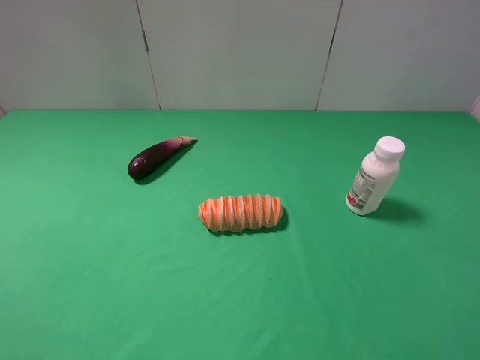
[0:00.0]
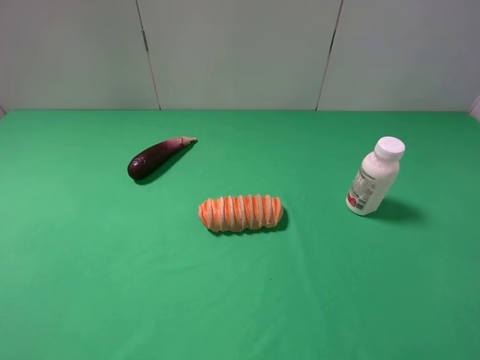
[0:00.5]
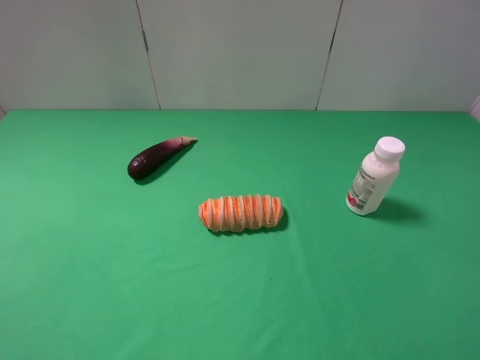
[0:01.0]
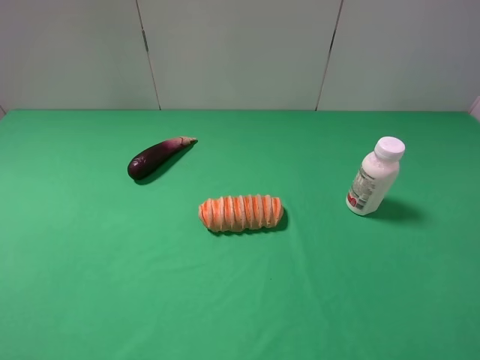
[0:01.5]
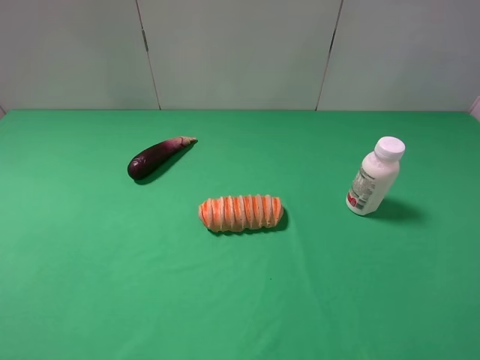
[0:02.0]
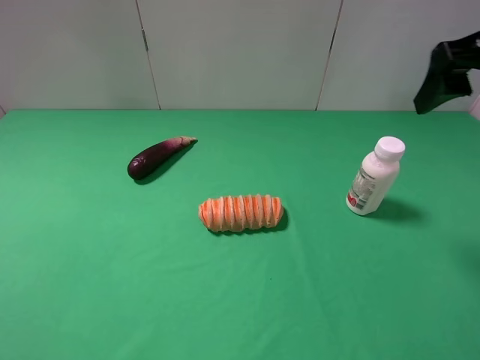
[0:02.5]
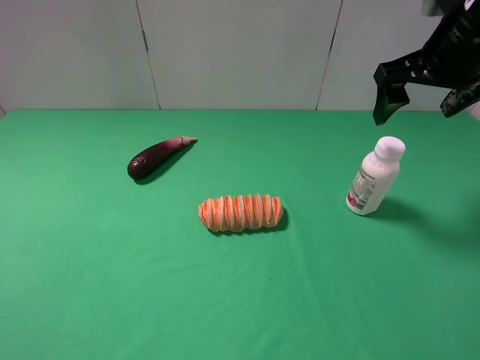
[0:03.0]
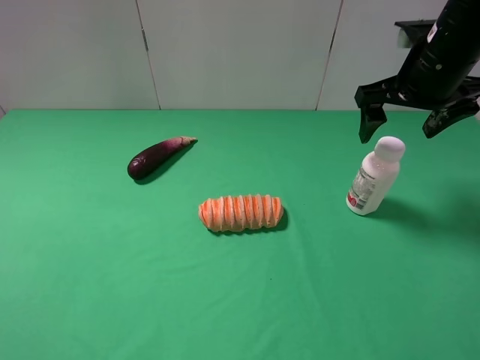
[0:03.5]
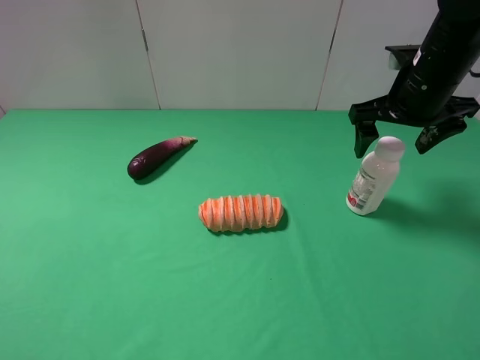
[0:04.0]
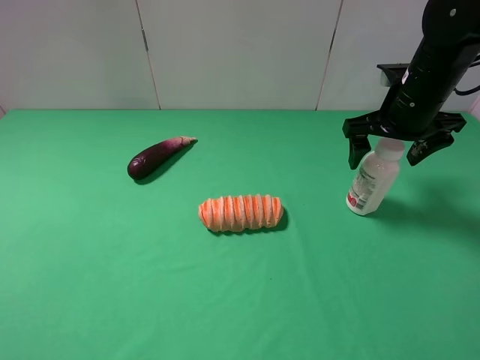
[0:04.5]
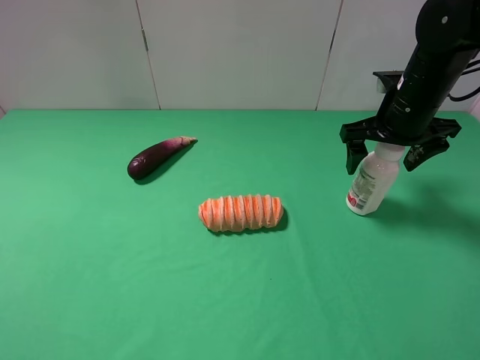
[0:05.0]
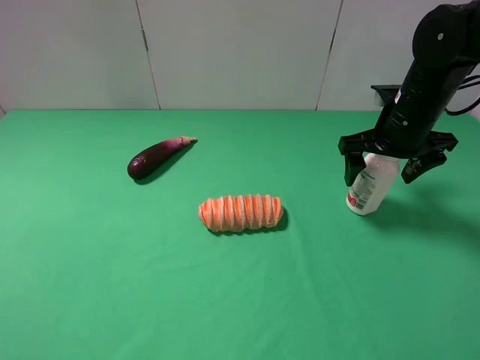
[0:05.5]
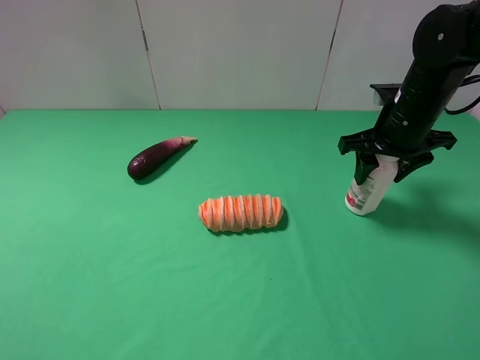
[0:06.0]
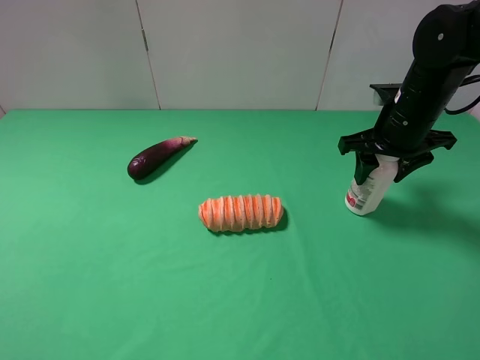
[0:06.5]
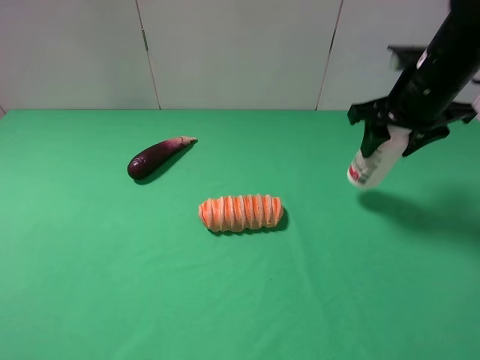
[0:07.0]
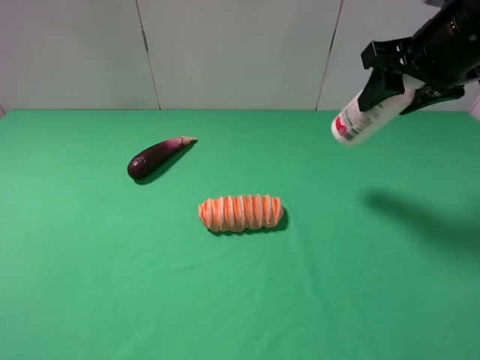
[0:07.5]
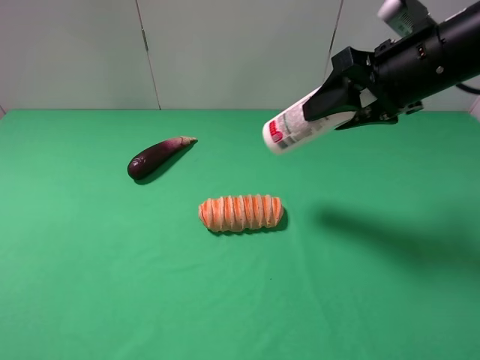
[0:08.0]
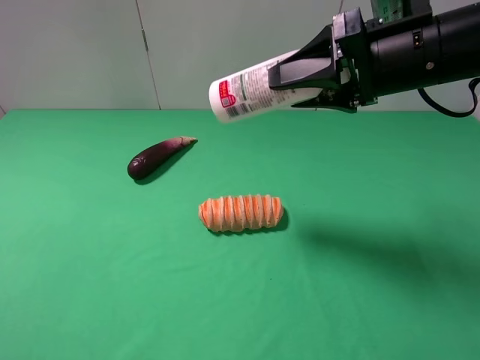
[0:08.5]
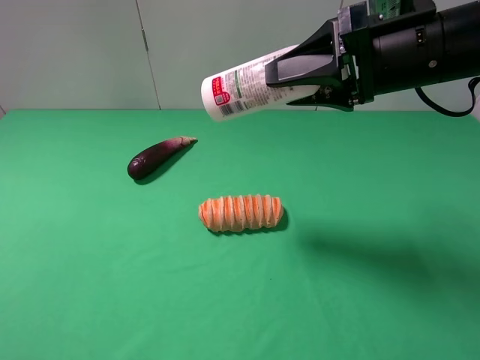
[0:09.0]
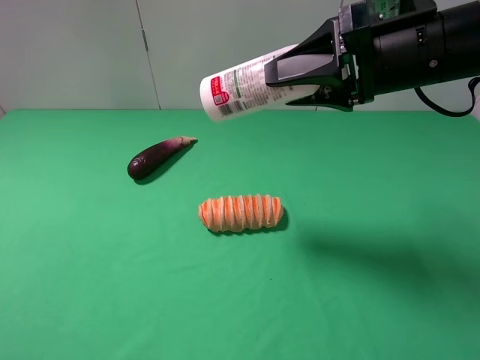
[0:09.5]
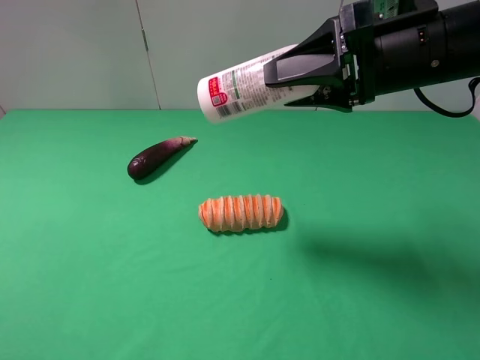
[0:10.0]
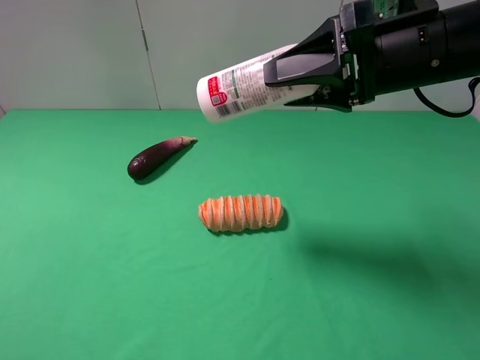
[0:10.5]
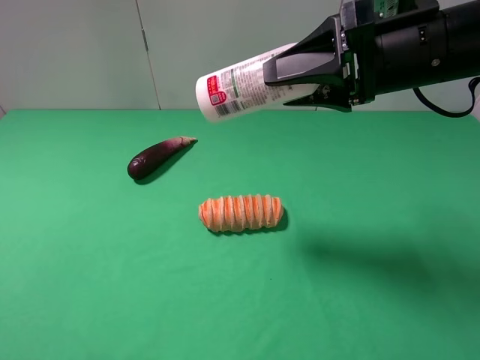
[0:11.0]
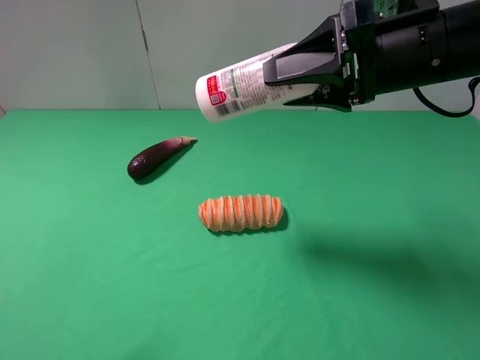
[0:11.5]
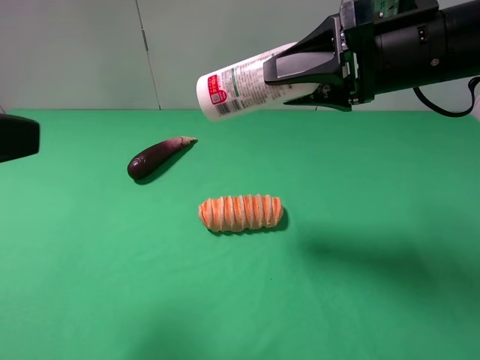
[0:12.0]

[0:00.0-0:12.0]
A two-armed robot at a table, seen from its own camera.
Task of the whole recording: use the right gripper to pick up the item and transfer it from the right gripper to the left gripper.
Step, 0:00.0 to 0:06.0: Use the right gripper to grab the milk on the right side of the table.
0:02.0 to 0:04.0: The right gripper heads forward and downward, covering approximately 25 cm.
0:04.0 to 0:06.0: The right gripper closes up.
0:06.0 to 0:08.0: The right gripper heads upward and backward, covering some 10 cm.
0:10.0 to 0:12.0: The left gripper is displaced forward, upward and to the right by roughly 15 cm.

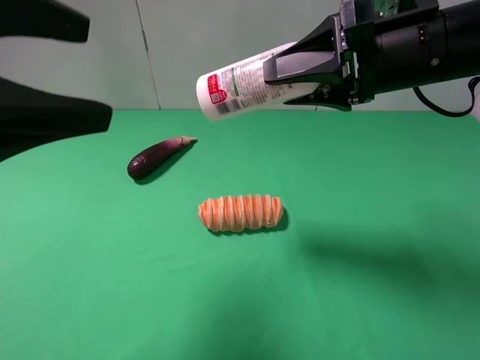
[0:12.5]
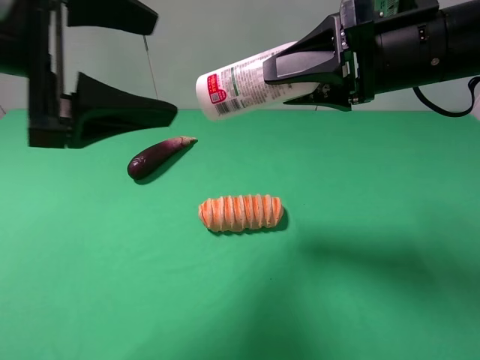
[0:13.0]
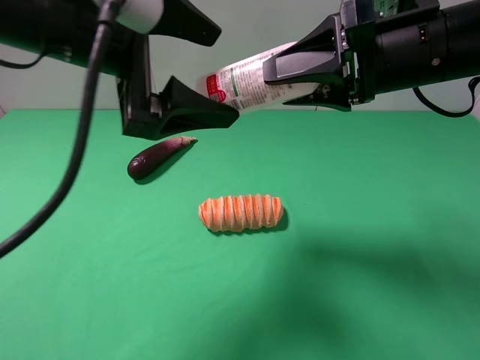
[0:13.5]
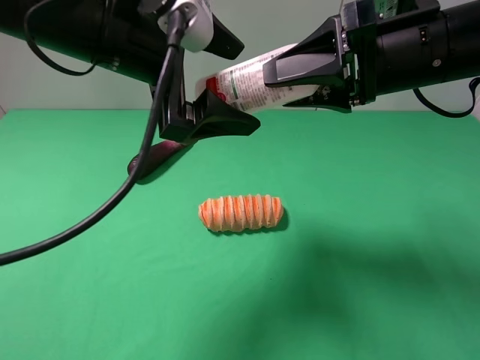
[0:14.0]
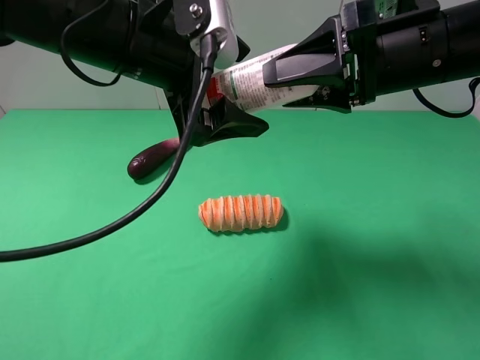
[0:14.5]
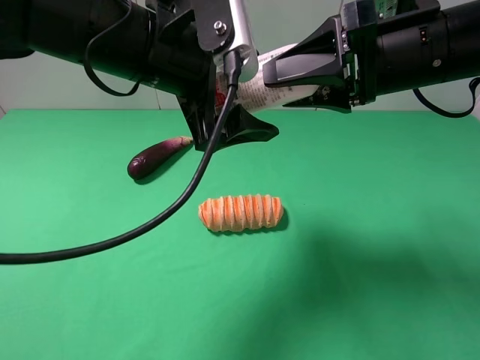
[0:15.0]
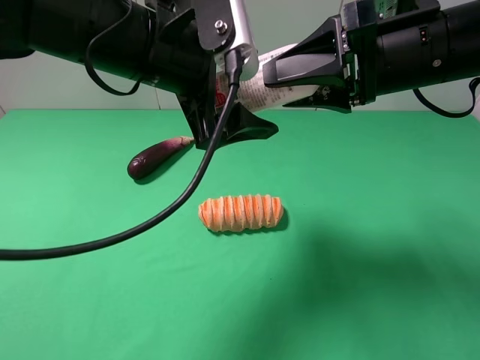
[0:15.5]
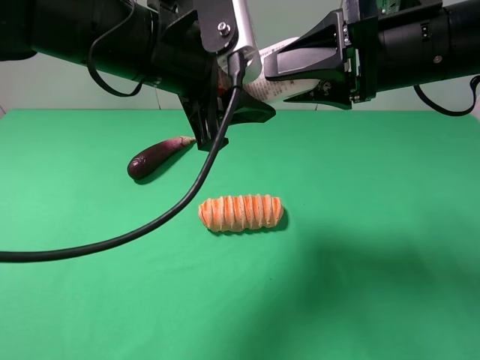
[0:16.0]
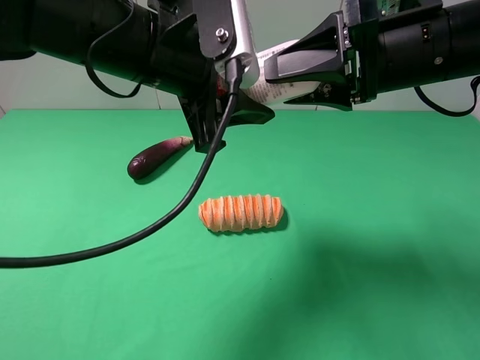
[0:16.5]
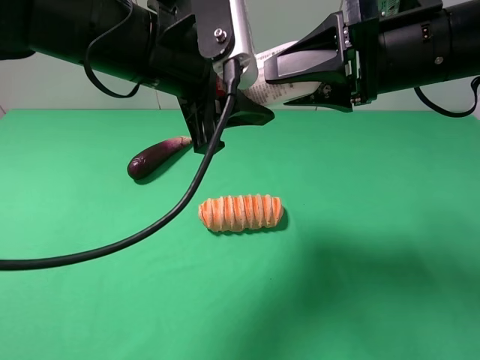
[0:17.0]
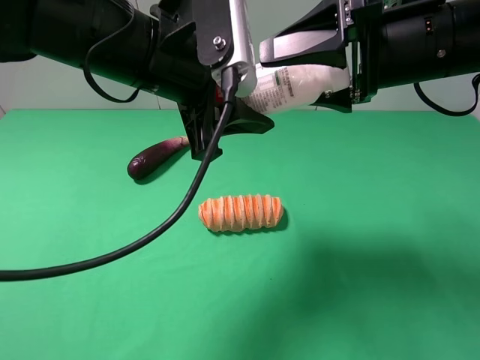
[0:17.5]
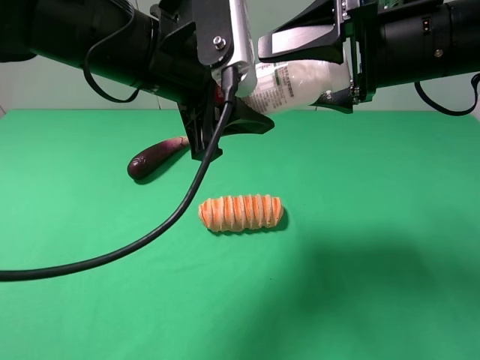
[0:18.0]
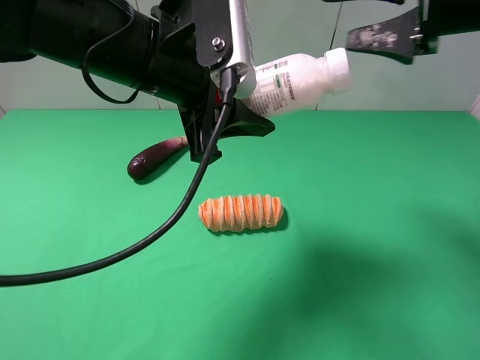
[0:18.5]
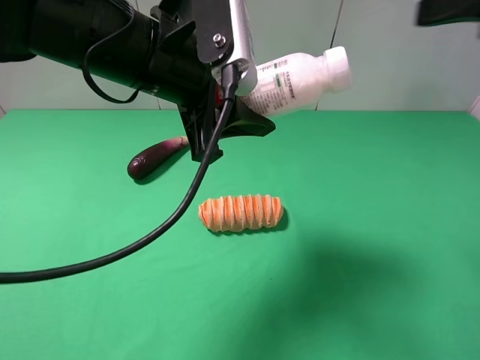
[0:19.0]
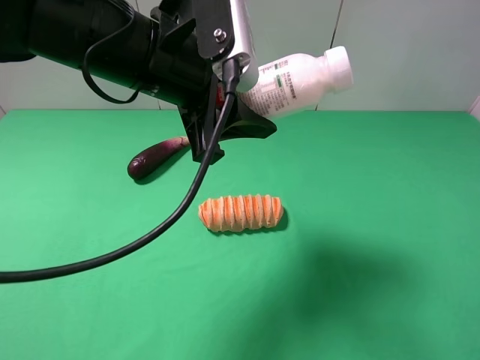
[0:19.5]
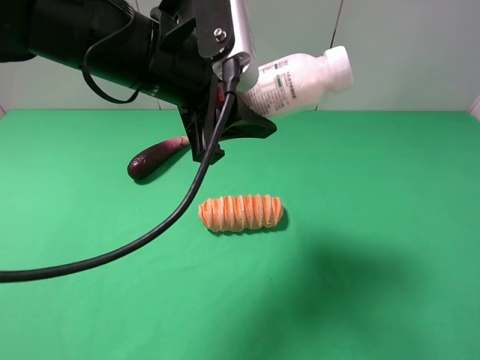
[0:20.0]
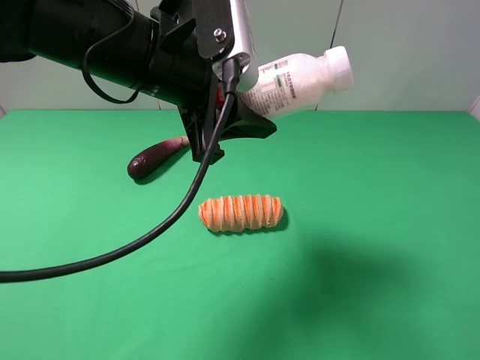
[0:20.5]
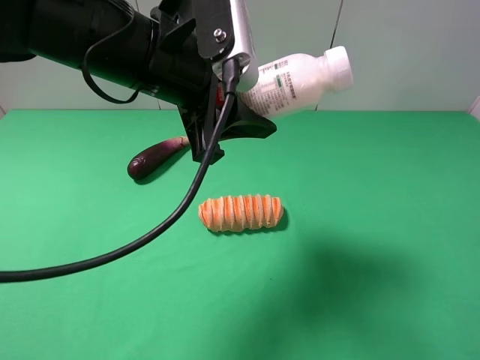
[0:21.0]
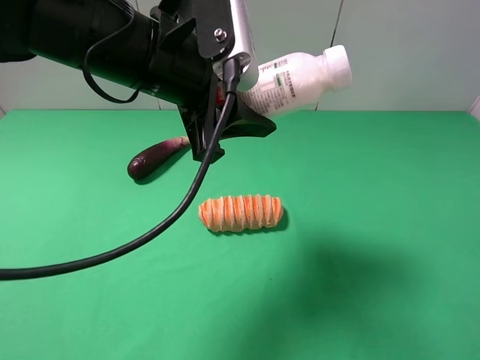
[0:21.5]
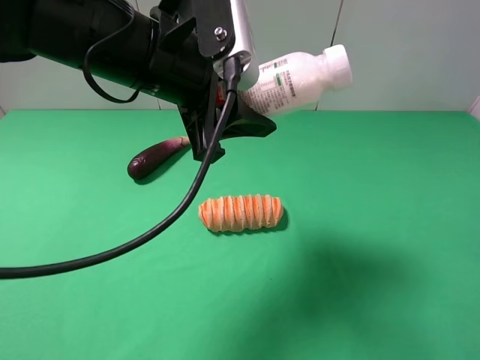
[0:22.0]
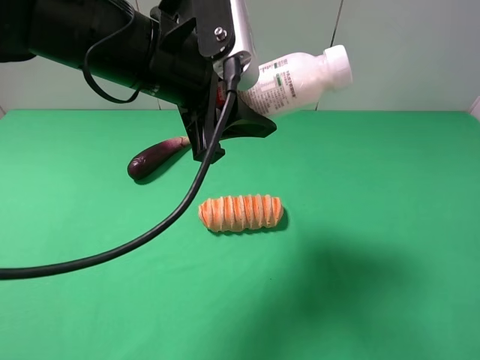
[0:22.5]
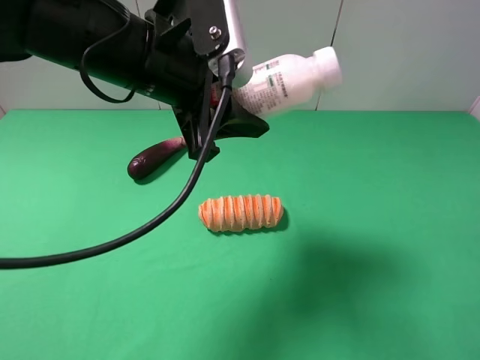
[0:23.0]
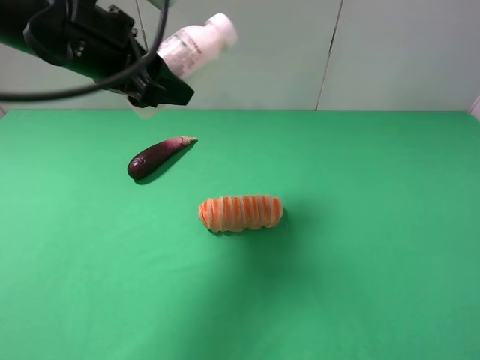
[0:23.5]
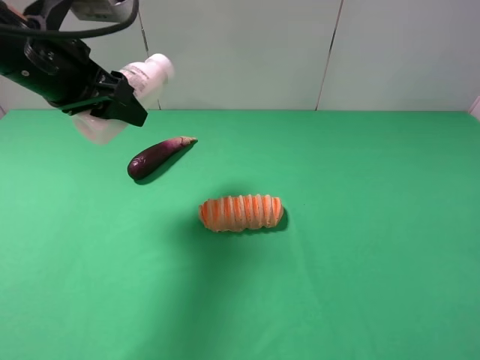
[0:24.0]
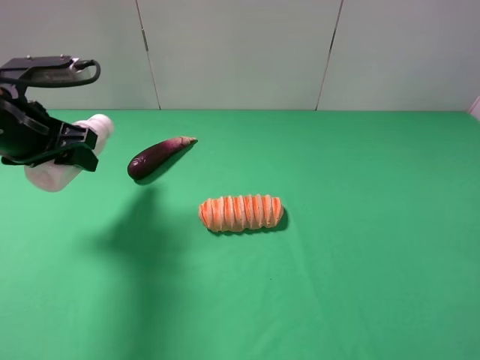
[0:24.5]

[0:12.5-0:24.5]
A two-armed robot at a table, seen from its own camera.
Task of the whole recording: use the right gripper to pick up the item and transfer it from the right gripper to the left gripper.
Step, 0:12.5 to 0:18.0: Pass the milk to the left gripper.
0:12.5 to 0:14.5: The left gripper shifts some 15 cm to the right and forward.
0:14.5 to 0:16.5: The left gripper closes up.
0:16.5 to 0:18.5: The right gripper is displaced to the right by some 5 cm, and opens.
0:18.5 to 0:20.5: The right gripper is displaced backward by about 25 cm.
0:20.5 to 0:22.5: The right gripper moves downward, roughly 5 cm.
0:22.5 to 0:24.5: The left gripper is displaced to the left by roughly 20 cm.

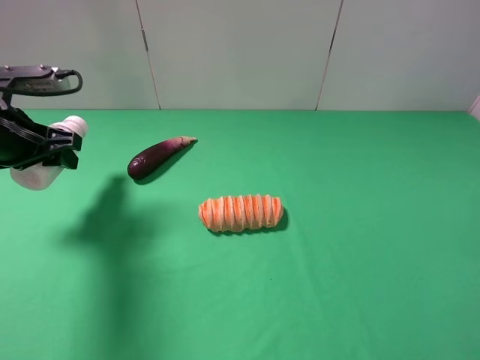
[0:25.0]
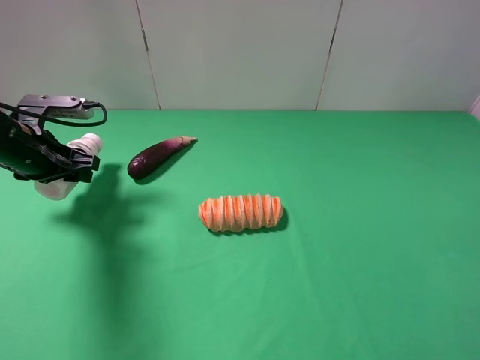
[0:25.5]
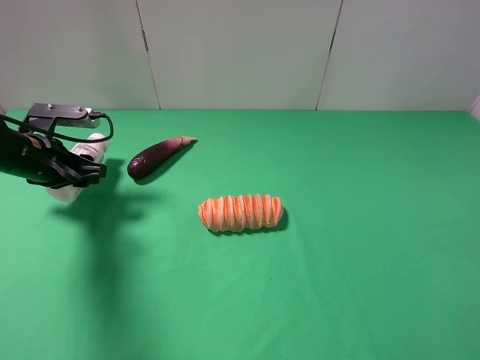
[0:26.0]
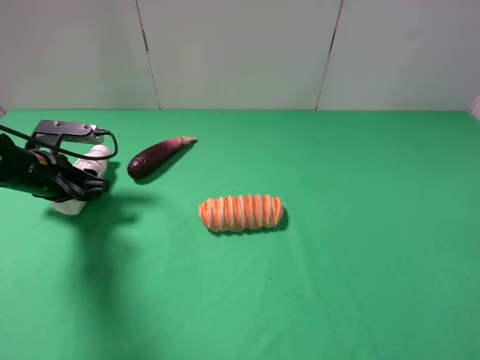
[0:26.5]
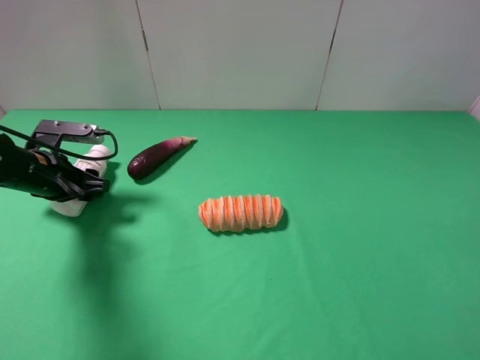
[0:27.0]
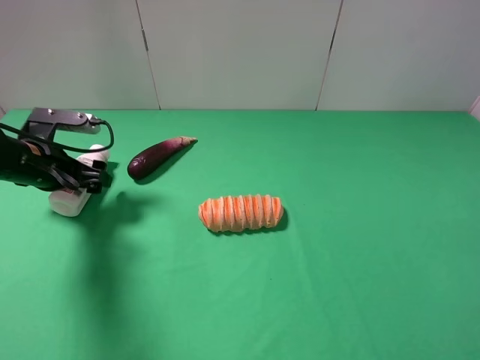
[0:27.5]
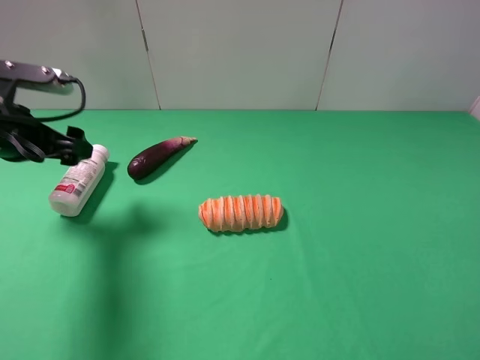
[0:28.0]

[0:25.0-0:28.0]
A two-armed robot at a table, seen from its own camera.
Task of the whole recording: use the right gripper to pick up the item and transfer it from the right gripper to the left gripper.
Step, 0:25.0 to 0:27.0: The left gripper places milk on the left side of the table.
0:25.0 to 0:26.5: The left gripper heads downward, covering some 10 cm.
0:26.5 to 0:28.0: The left gripper shifts some 10 cm upward, and opens.
